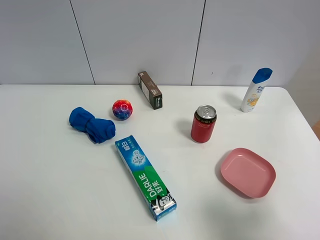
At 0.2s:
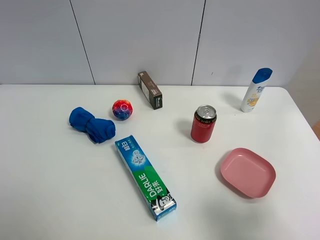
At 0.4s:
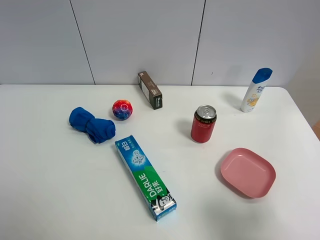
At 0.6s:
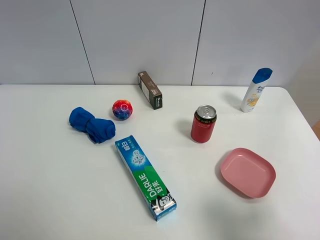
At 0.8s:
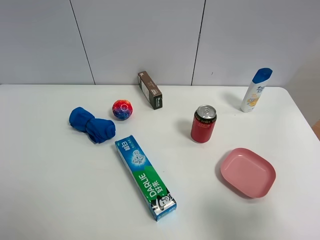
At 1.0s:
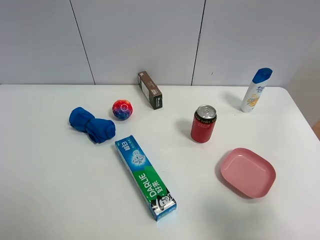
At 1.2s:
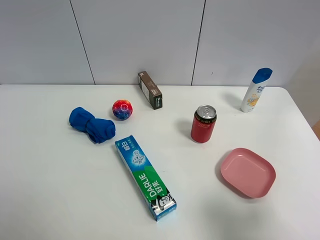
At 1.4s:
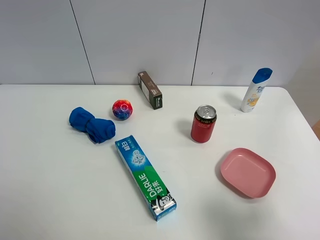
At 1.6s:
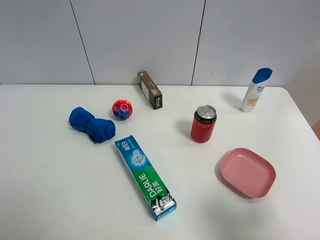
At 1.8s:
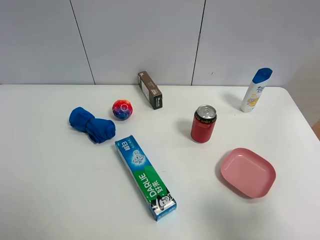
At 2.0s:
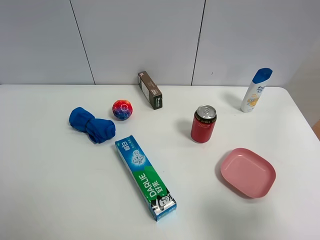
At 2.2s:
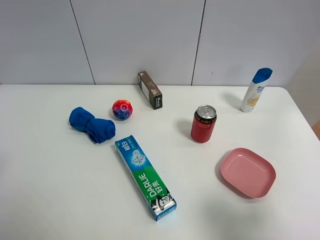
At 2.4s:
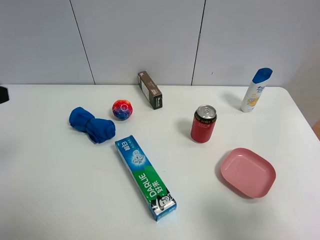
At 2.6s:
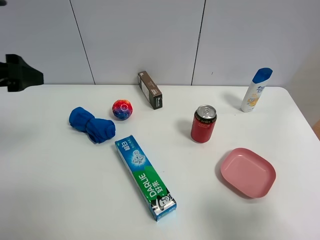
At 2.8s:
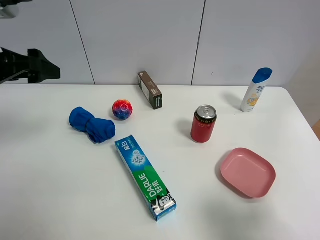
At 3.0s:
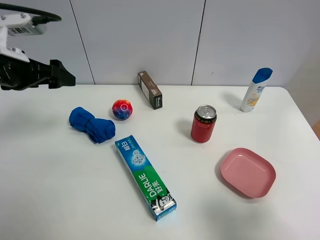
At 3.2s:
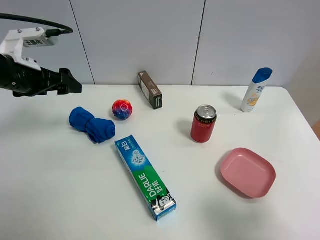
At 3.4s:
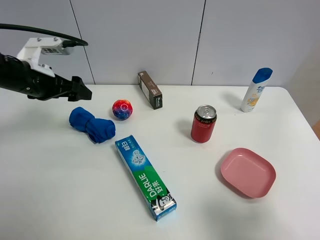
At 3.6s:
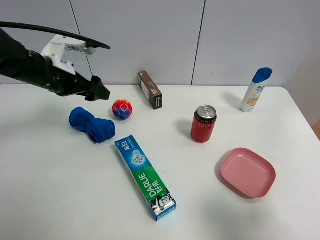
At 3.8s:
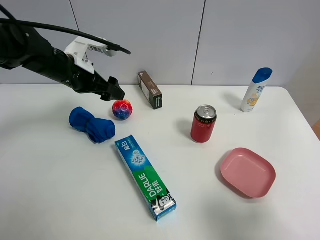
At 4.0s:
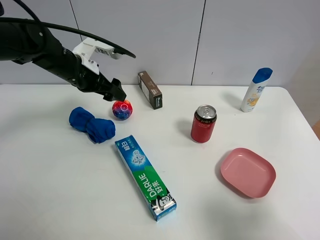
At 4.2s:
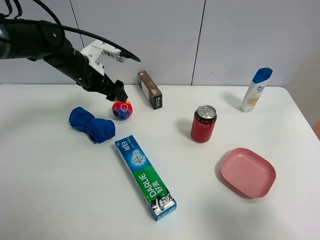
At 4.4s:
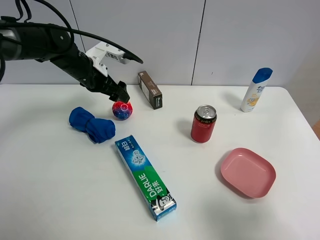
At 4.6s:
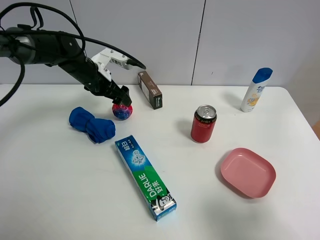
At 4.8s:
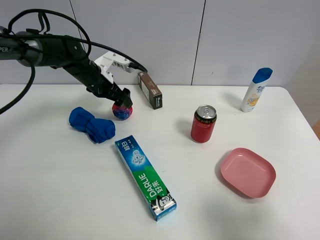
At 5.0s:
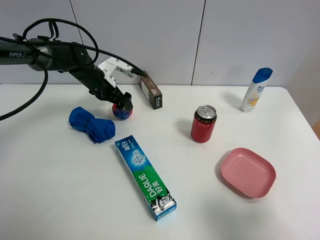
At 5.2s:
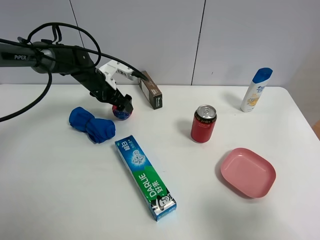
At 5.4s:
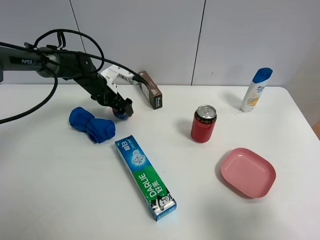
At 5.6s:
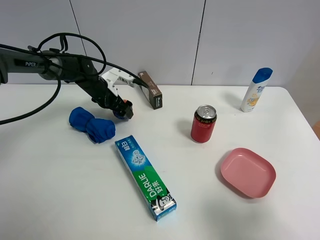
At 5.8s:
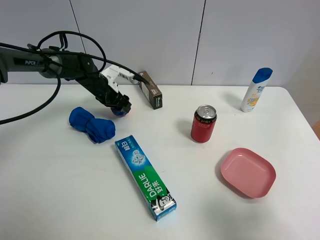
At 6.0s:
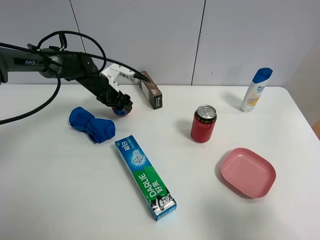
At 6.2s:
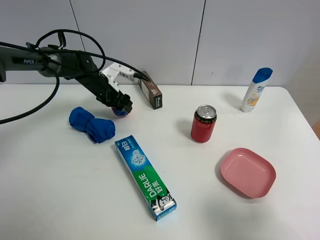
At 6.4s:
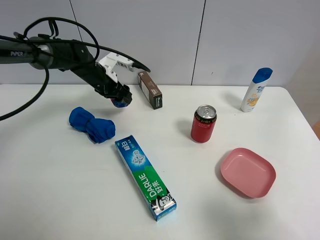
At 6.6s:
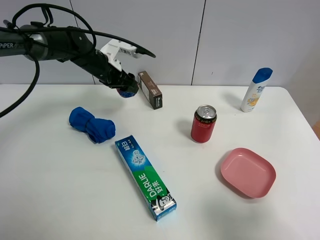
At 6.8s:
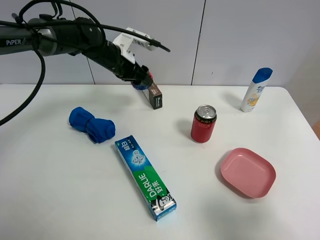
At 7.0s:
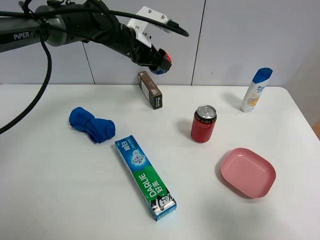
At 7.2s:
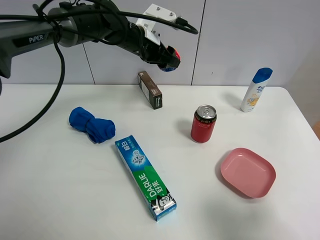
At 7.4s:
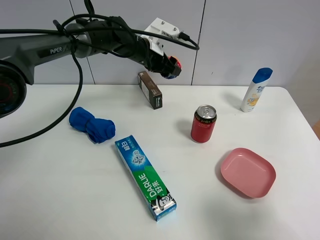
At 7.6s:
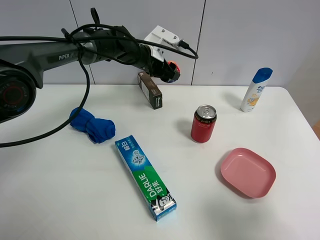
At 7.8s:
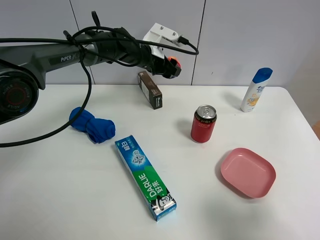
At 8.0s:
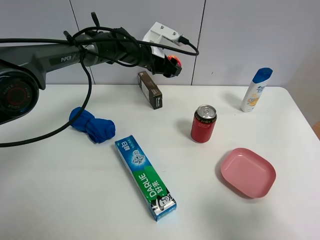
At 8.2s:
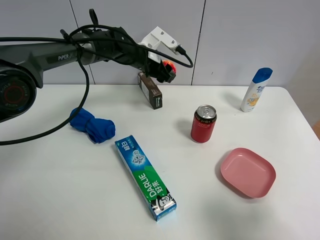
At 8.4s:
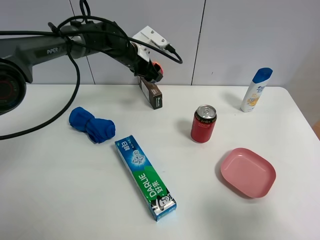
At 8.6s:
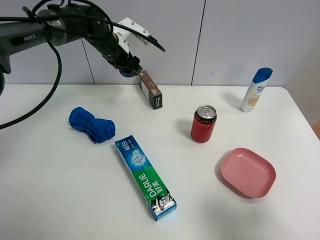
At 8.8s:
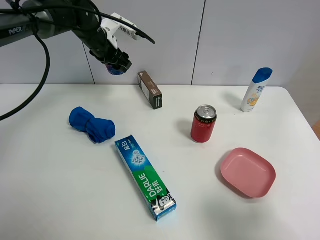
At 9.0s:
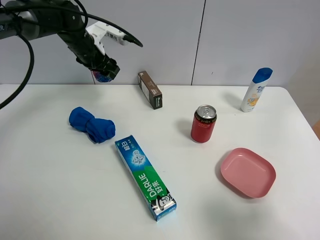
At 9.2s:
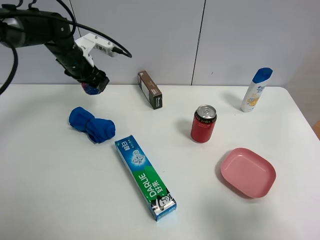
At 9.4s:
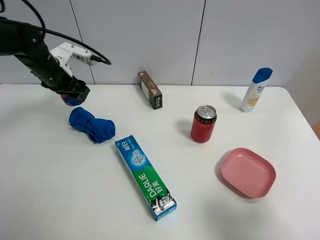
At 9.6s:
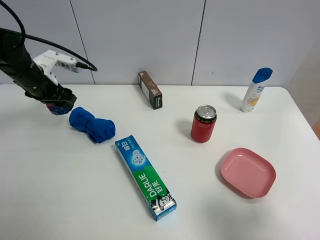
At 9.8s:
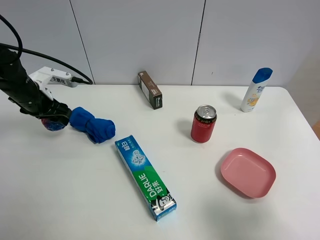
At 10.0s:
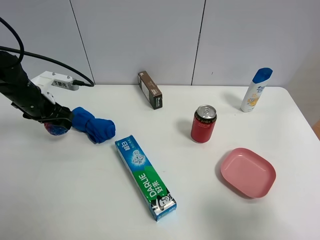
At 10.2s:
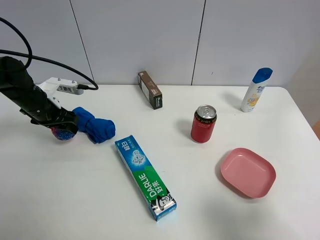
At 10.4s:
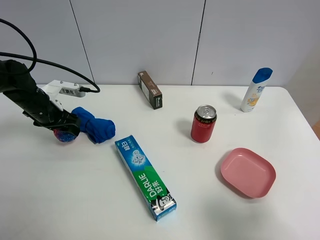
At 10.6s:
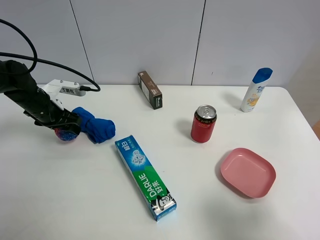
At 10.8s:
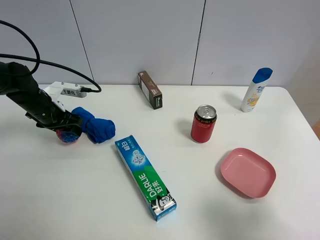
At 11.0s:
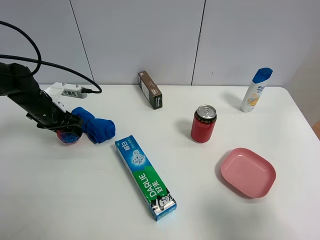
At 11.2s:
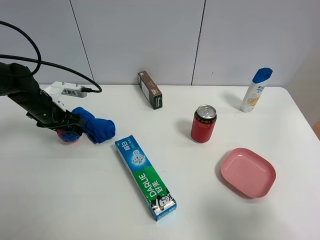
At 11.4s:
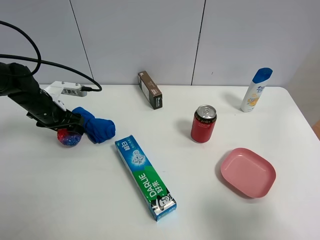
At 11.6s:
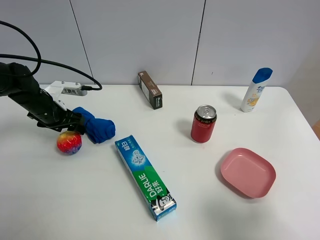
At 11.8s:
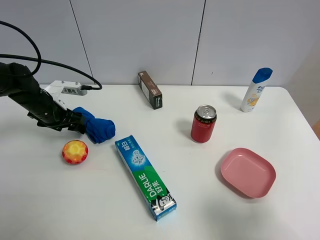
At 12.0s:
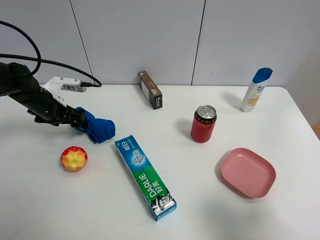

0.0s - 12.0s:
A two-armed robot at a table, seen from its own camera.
Task of the whole recording: the gripper move the object.
Step, 0.0s - 5.6s: Grasp the colorful ball with the left gripper.
Step, 5.8s - 11.4s: Place the colorful ball on the table with the left gripper.
0.0s - 1.6s: The two grippers keep their place.
1.6s - 3.0s: The left gripper heads forward, covering roughly 30 cm.
3.0s - 4.4s: The left gripper heads forward, to the right and downward, covering roughly 15 cm.
4.4s - 6.0s: The left gripper travels downward by approximately 10 cm, and closes up.
6.0s - 7.6s: The left gripper shifts some 15 cm to the right and upward.
7.6s - 9.0s: The left gripper heads to the left, covering approximately 15 cm.
9.0s - 10.4s: The left gripper is displaced backward, to the left and downward by roughly 15 cm.
10.4s - 12.0s: The left gripper opens up.

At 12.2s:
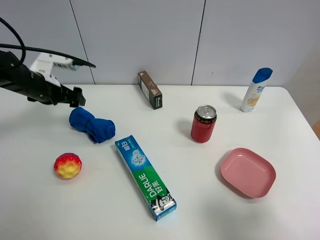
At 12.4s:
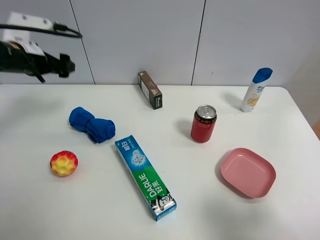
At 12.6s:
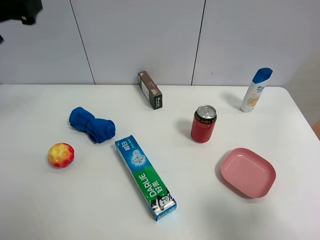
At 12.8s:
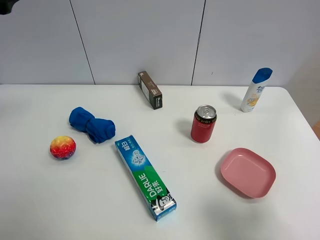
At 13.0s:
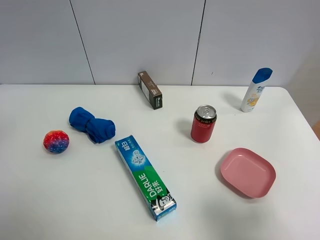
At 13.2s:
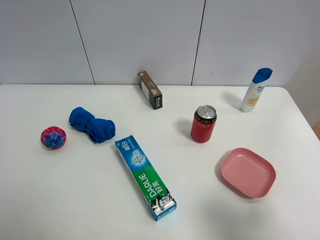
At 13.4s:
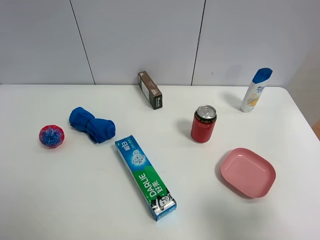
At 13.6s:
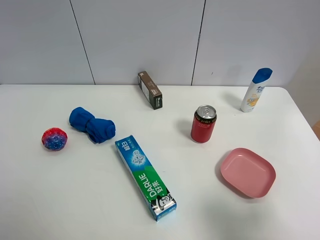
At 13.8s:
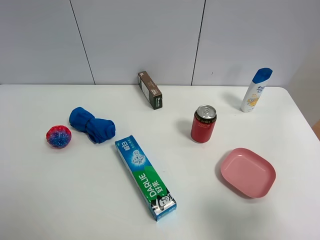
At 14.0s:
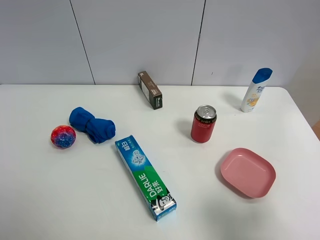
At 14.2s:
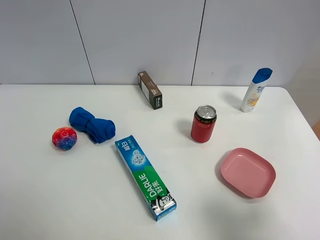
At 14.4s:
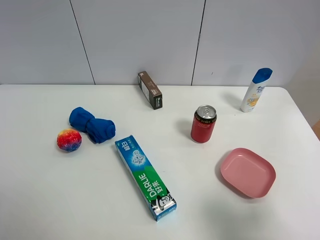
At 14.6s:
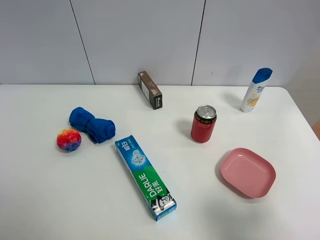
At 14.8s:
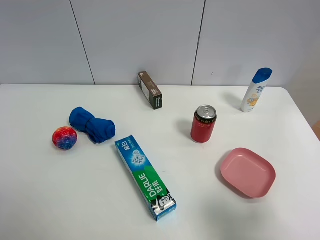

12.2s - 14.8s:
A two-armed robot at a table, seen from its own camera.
Task of the whole recording: the gripper move the object.
12.2s - 13.4s: The left gripper moves backward and upward, about 40 cm.
13.4s - 14.8s: The left gripper shifts about 10 cm downward.

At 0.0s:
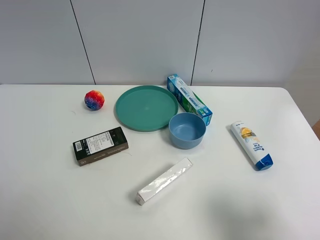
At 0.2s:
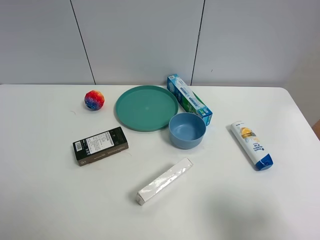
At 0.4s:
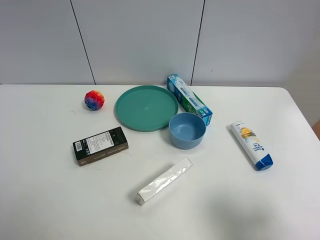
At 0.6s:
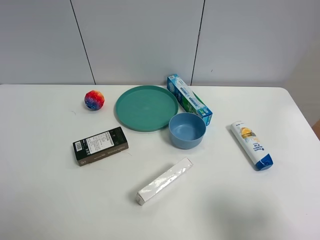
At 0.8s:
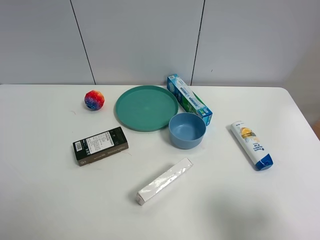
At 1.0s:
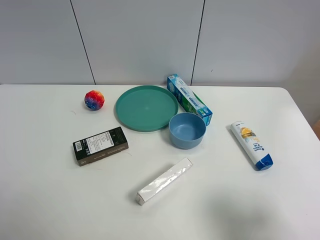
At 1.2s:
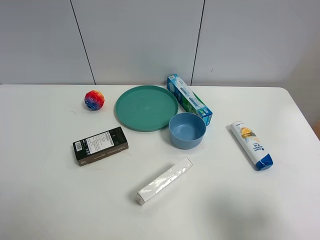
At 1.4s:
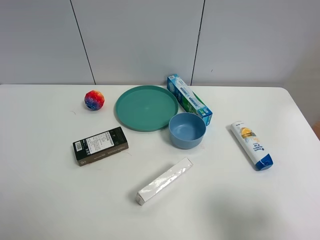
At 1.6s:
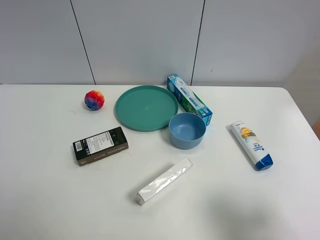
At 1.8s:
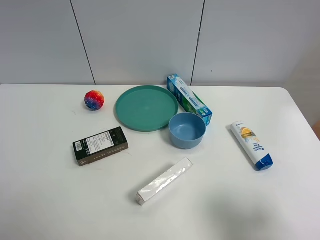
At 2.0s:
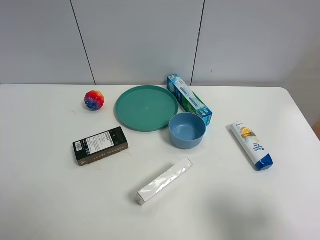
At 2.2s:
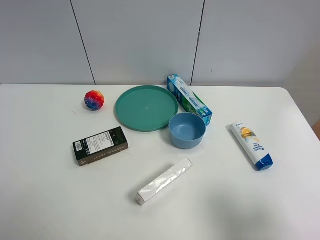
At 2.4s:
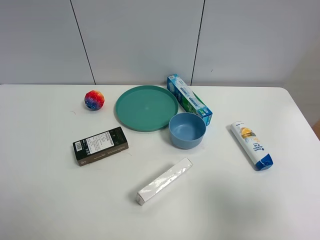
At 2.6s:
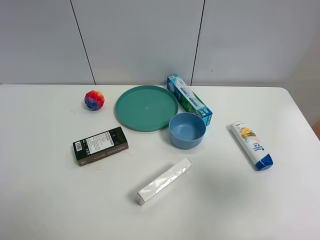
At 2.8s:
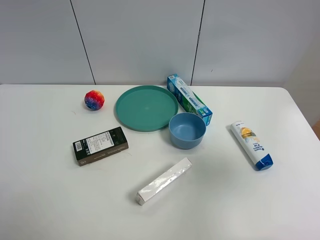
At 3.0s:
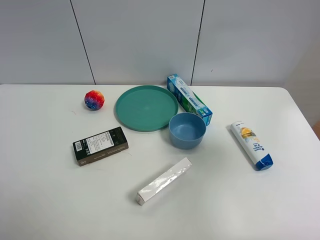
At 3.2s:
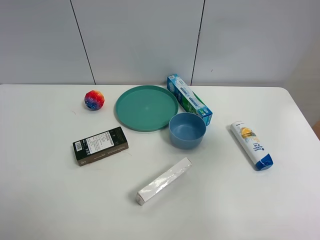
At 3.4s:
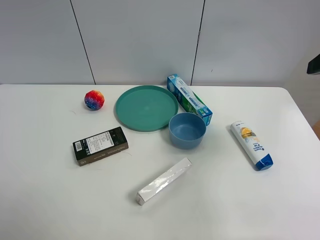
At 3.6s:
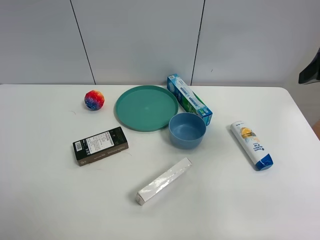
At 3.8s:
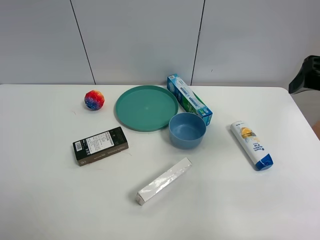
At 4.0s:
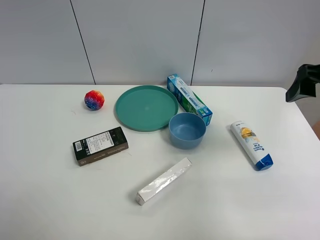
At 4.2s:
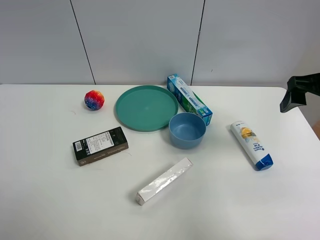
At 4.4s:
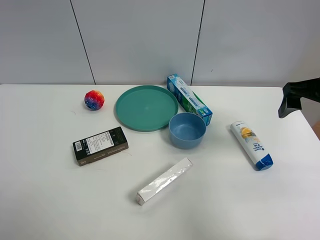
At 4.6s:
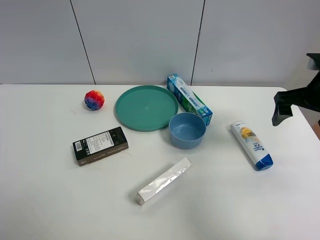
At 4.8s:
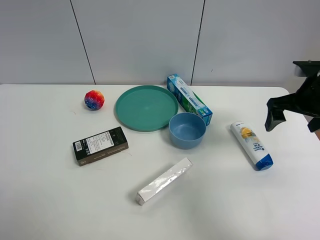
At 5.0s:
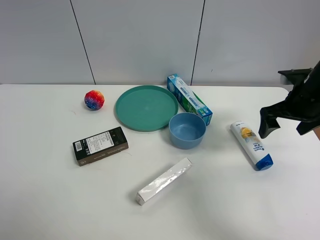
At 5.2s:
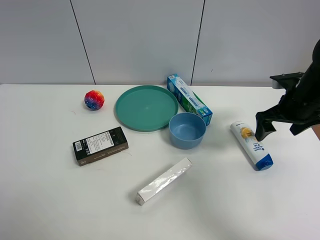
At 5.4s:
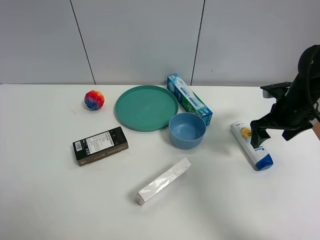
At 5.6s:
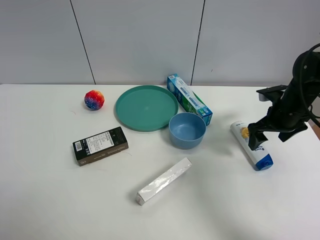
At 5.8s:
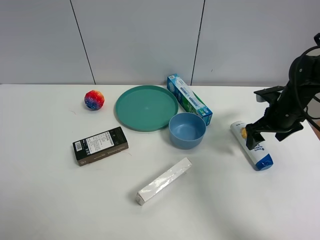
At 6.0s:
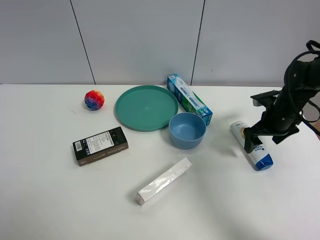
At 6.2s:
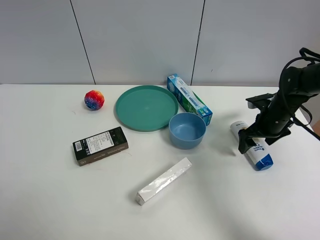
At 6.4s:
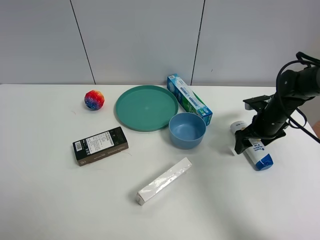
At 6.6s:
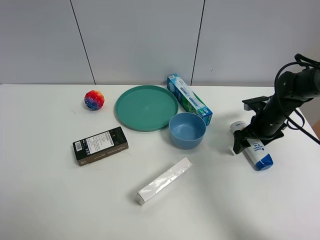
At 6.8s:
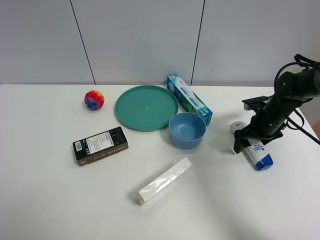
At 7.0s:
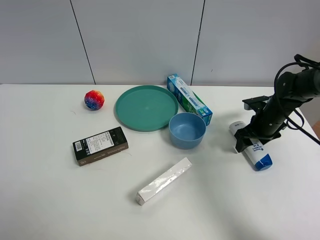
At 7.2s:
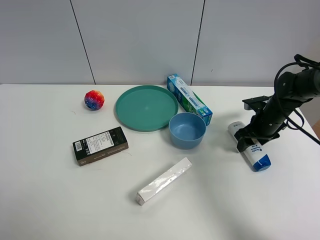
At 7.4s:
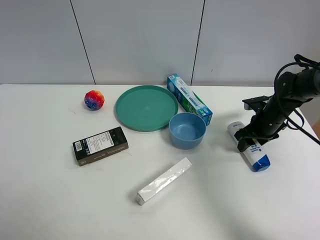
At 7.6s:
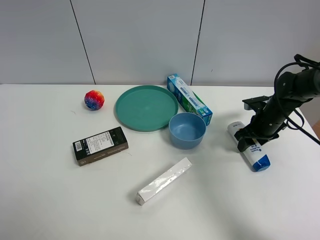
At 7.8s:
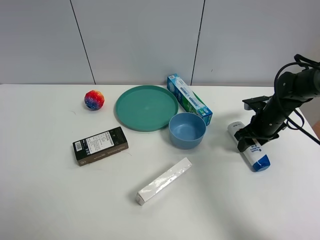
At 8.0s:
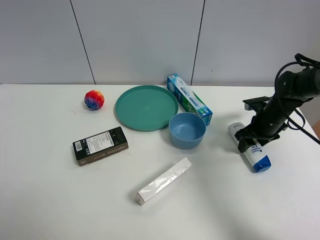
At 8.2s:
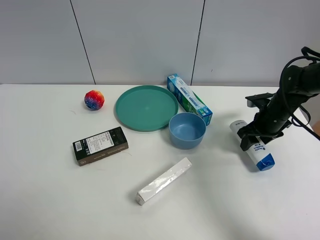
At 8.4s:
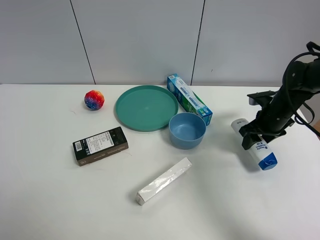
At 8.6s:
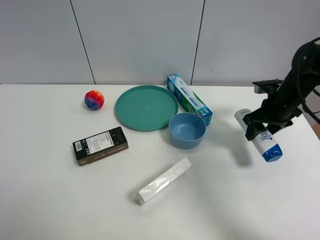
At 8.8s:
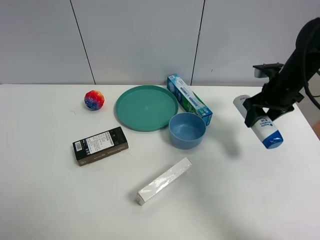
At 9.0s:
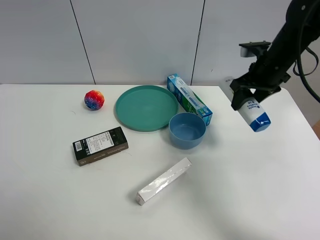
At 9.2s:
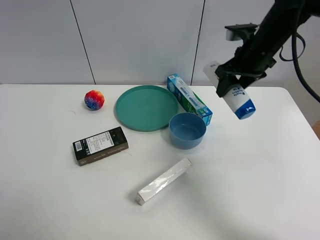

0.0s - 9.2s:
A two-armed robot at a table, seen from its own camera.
Task of the whole recording: the gripper move the object.
Step, 0.0s - 7.2s: Grasp the shampoo with the right gripper.
0.0s - 1.6s: Both grippers stay put.
1.6s - 3.0s: The right gripper is displaced forward and upward by roughly 20 cm.
3.0s - 4.6s: The right gripper moves forward and downward, about 20 cm.
4.6s - 6.2s: The right gripper shifts some 15 cm downward and forward.
6.2s - 7.6s: The right gripper closes up.
7.6s - 9.2s: The right gripper is displaced upward and to the left by approximately 20 cm.
